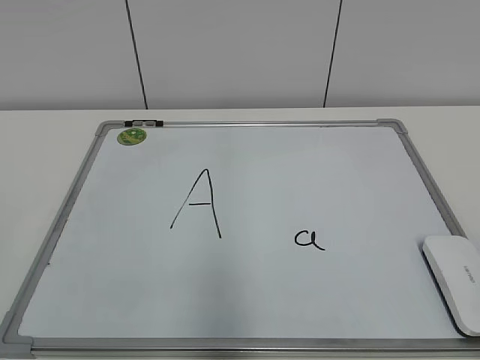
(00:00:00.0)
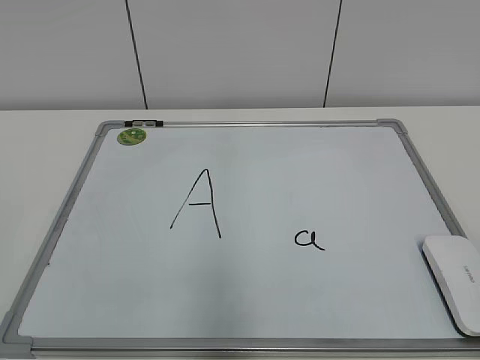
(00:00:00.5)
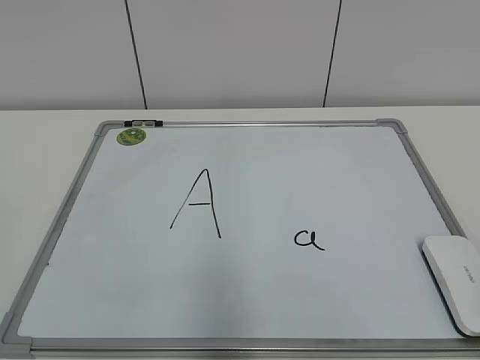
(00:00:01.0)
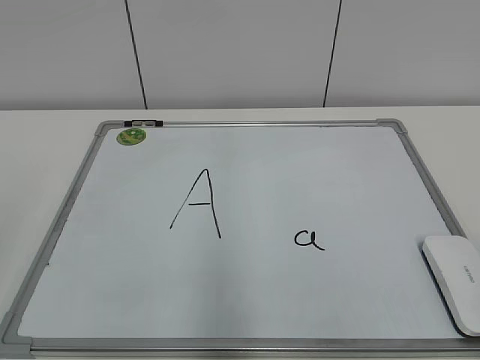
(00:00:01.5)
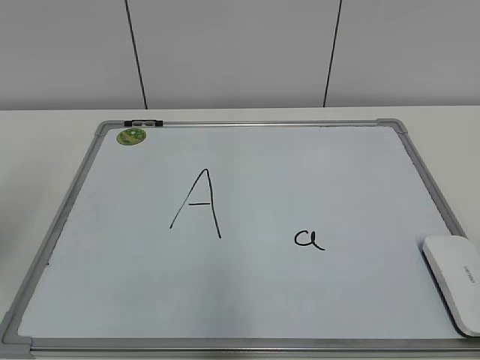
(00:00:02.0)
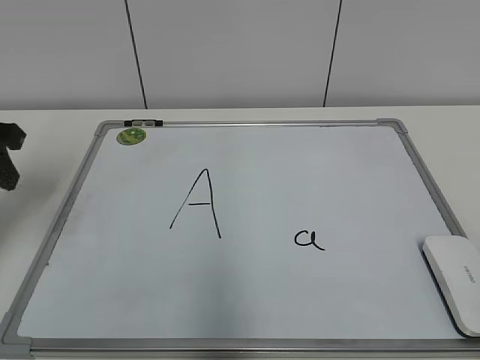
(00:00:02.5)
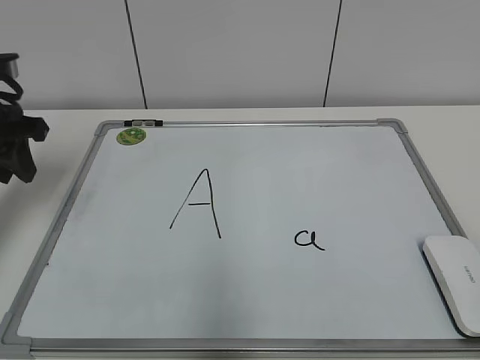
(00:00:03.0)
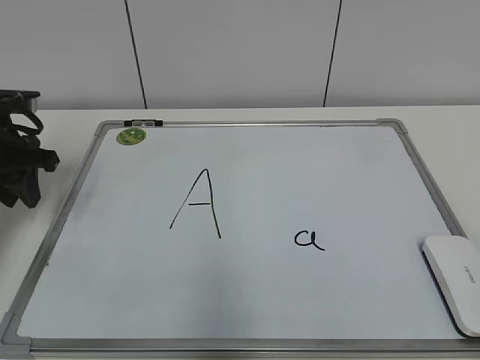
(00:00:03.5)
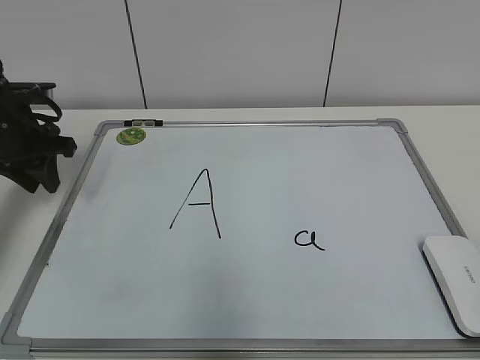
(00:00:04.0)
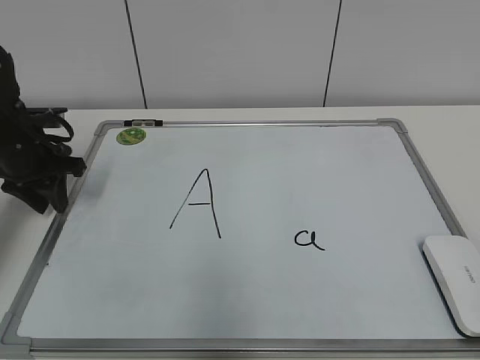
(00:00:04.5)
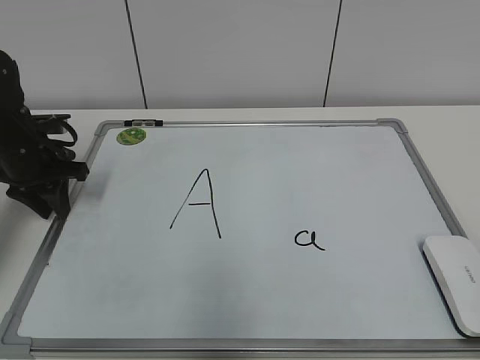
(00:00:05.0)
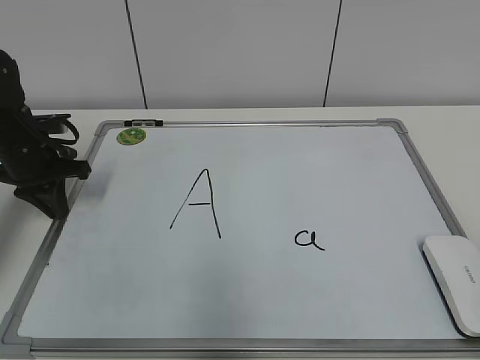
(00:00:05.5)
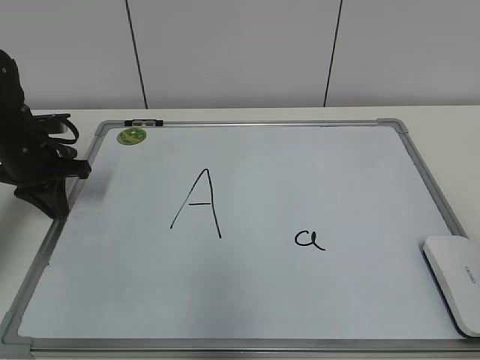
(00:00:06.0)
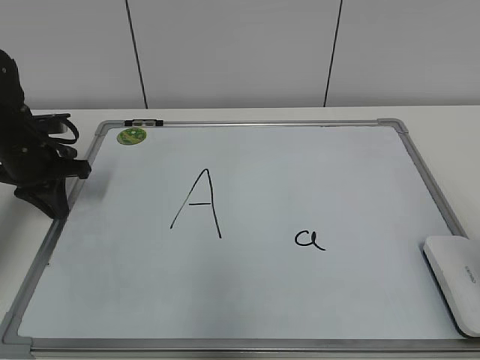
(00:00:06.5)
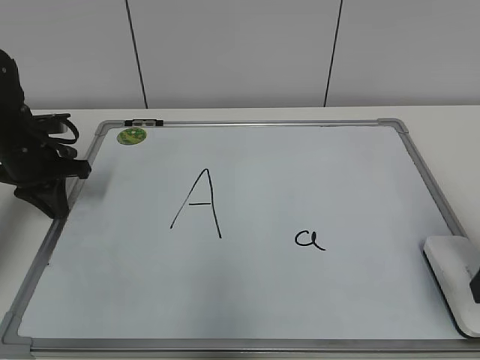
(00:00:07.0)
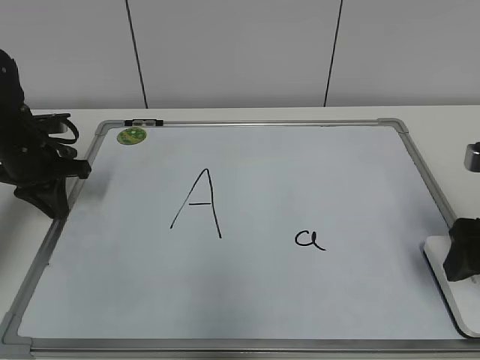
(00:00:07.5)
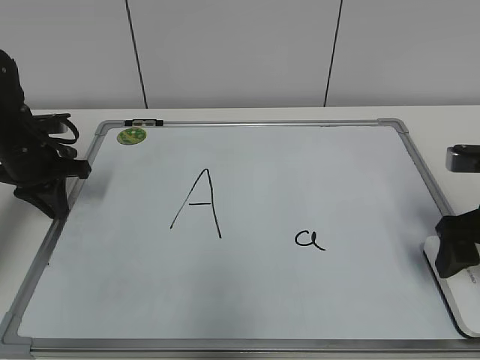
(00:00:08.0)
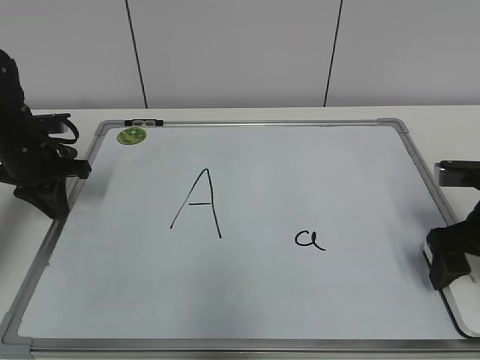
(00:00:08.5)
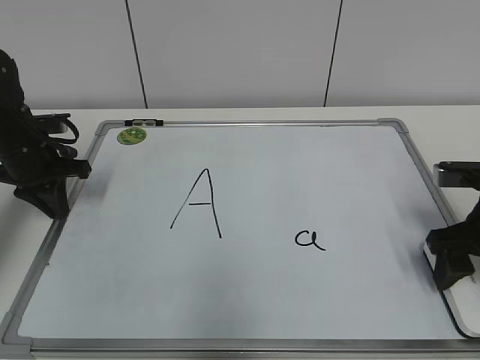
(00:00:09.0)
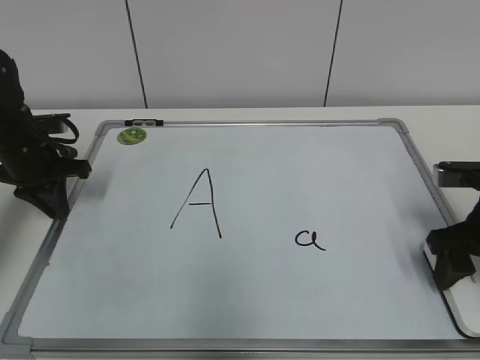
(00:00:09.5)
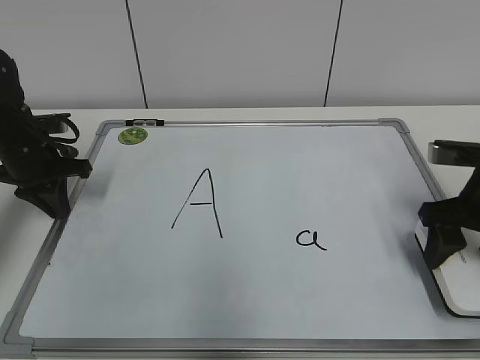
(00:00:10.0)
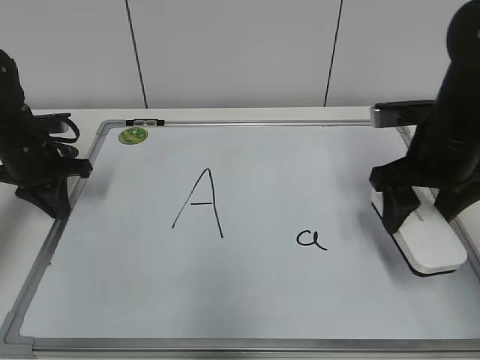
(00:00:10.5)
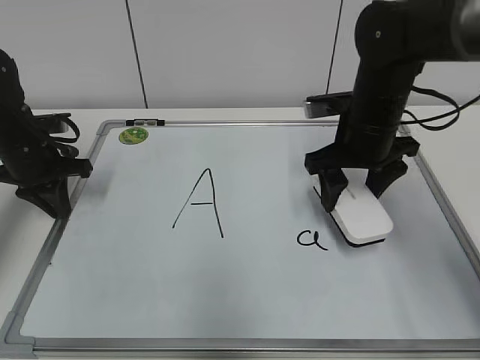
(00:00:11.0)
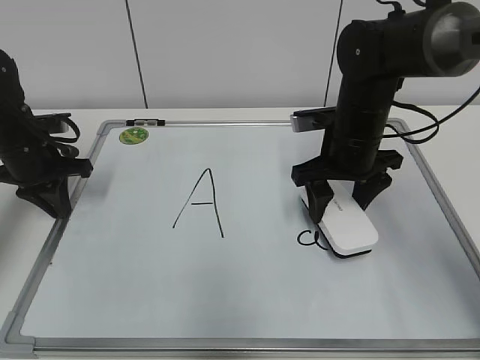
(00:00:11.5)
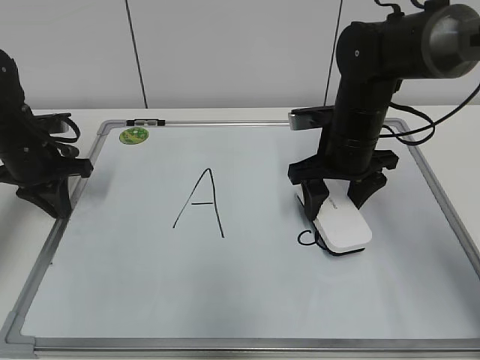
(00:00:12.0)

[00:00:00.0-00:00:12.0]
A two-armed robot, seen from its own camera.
Task of the whole recording: pick up the eraser on the blackboard and erase the letter "a".
Step, 00:00:00.0 to 00:00:05.0: Hold the drawing board steady with your left hand.
Step, 00:00:05.5 to 00:00:09.5: Grab the eraser with your right hand.
00:00:02.0 to 00:00:04.0: The left gripper is displaced forward and downward by approximately 25 cm.
00:00:04.0 to 00:00:06.0: The left gripper closes.
00:00:06.0 to 00:00:08.0: The right gripper is displaced forward and downward by about 20 cm, and opens up.
00:00:08.0 to 00:00:10.0: The right gripper closes its fingers.
00:00:10.0 to 00:00:12.0: The right gripper shifts about 15 cm to the left and forward.

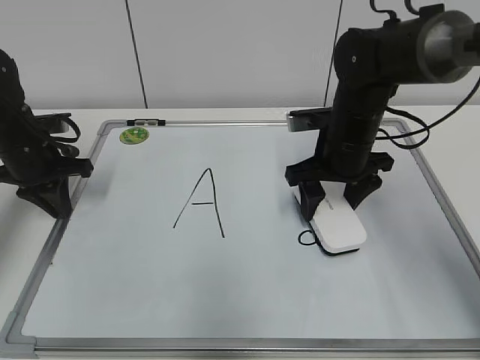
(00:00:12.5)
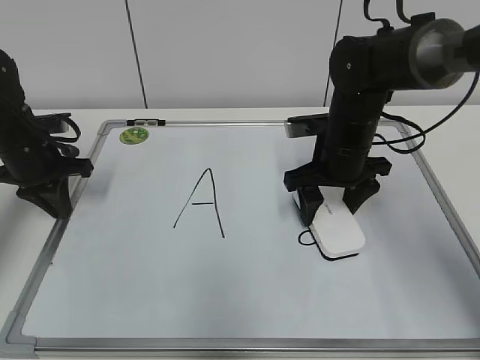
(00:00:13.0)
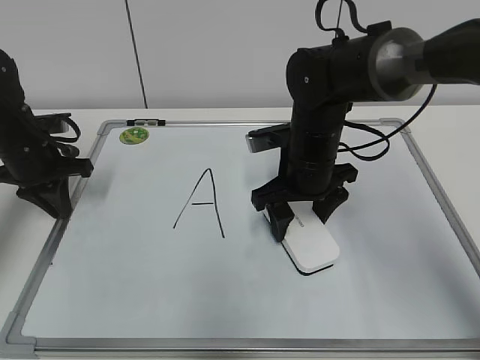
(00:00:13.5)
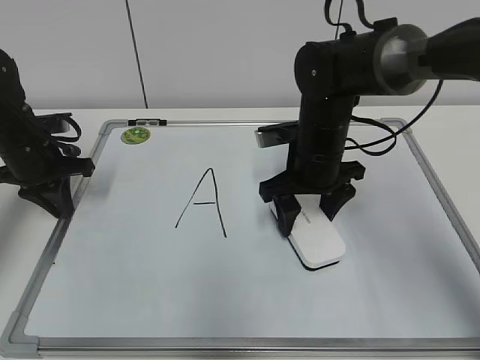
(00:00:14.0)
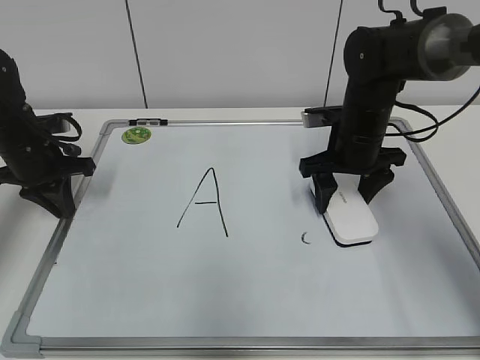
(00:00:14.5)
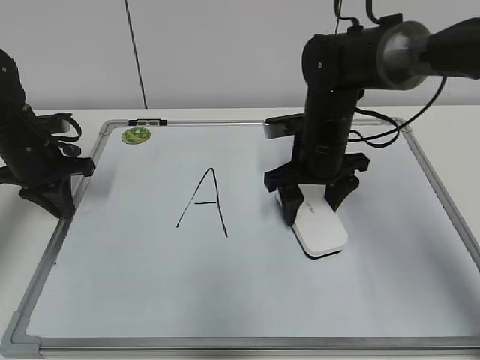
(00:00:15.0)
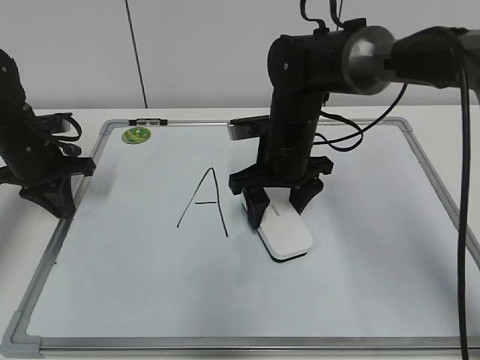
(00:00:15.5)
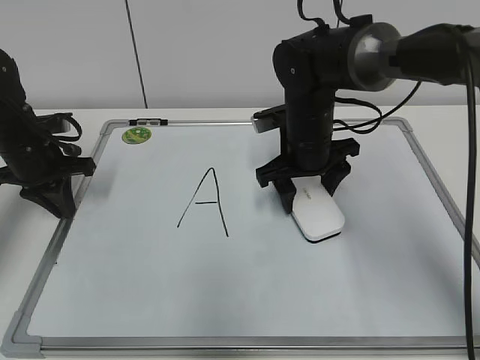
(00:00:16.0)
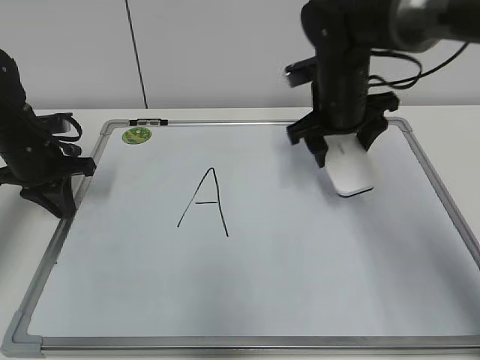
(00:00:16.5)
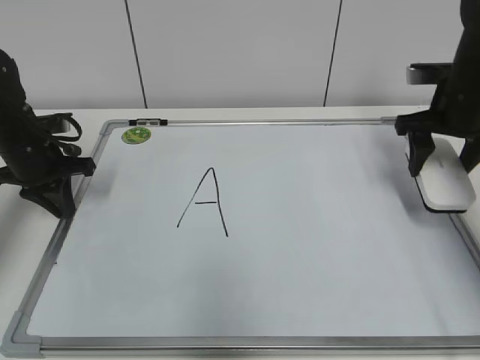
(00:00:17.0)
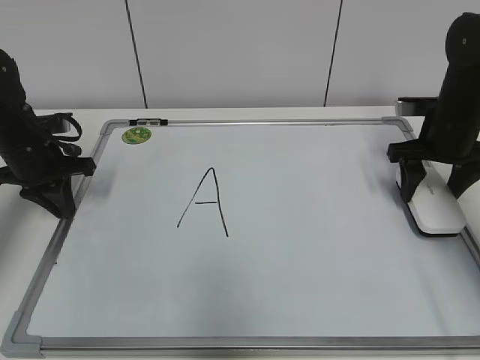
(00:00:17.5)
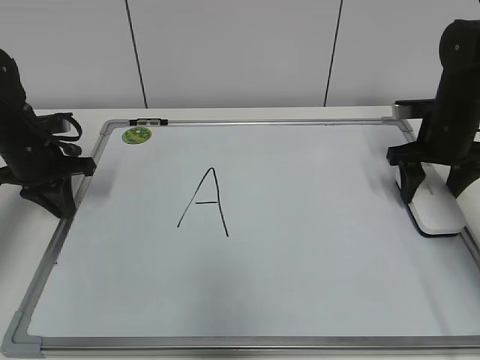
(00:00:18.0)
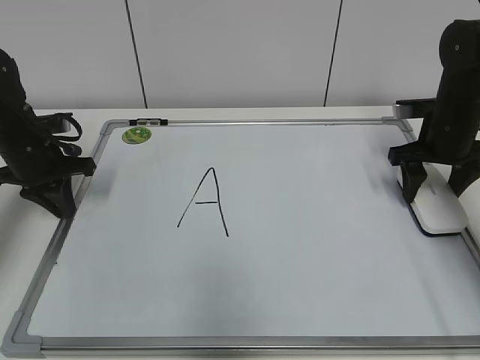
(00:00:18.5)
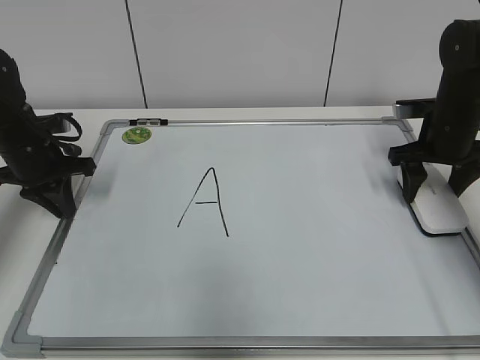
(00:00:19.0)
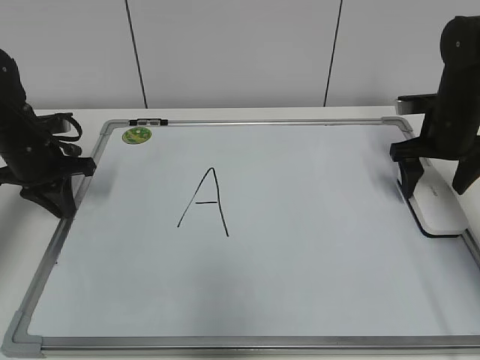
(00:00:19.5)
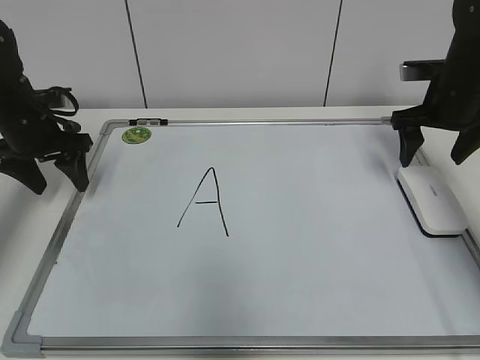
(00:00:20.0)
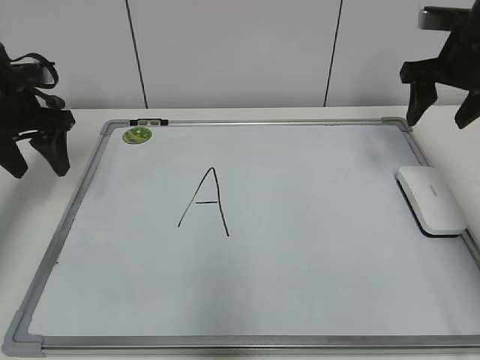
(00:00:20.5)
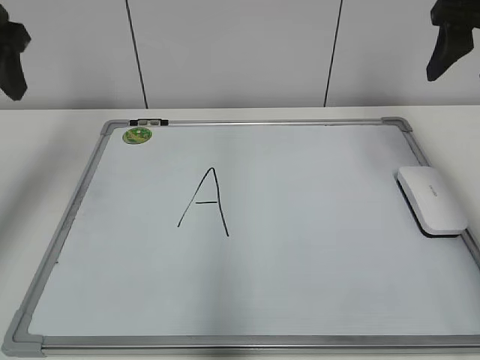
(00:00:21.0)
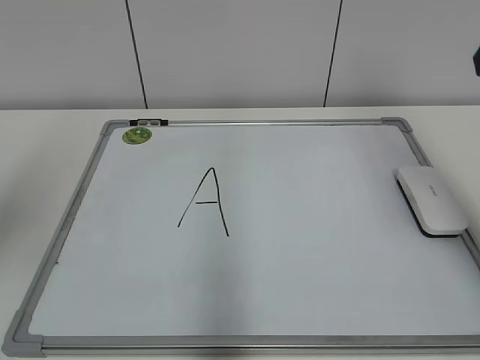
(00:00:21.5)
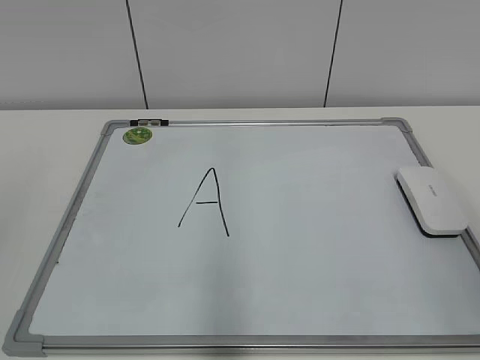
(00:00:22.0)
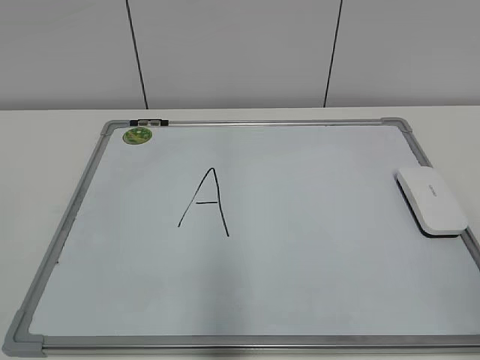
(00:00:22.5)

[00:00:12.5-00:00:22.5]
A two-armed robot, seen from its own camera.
Task of the whole recording: pick up the eraser on the blackboard and erase the letter "a".
Step, 00:00:12.5 to 00:00:16.0: Erase the letter a with your right hand.
Step, 00:00:16.5 to 00:00:19.0: Put down the eraser with your right hand.
00:00:12.5 to 00:00:14.5: The grippers make only small movements.
00:00:14.5 to 00:00:16.5: The right gripper shifts about 5 cm upward, and goes to the left and returns, about 10 cm each way.
00:00:16.5 to 00:00:18.5: The right gripper shifts roughly 15 cm to the right.
00:00:18.5 to 00:00:20.5: The grippers both shift upward by approximately 10 cm. The right gripper opens, then closes once more; the left gripper opens its fingers.
00:00:20.5 to 00:00:22.5: Both grippers travel together backward, about 40 cm.

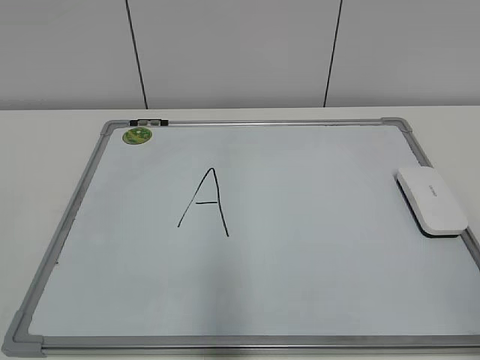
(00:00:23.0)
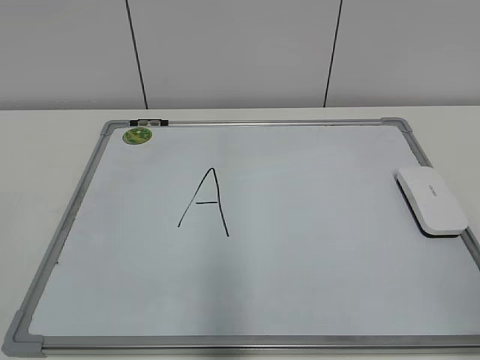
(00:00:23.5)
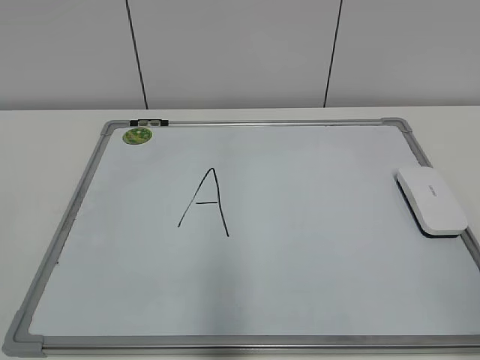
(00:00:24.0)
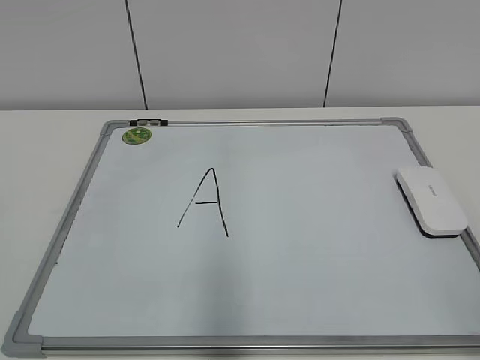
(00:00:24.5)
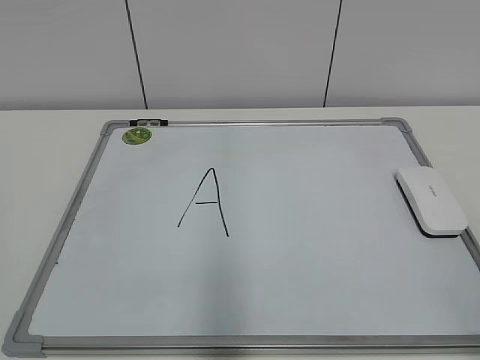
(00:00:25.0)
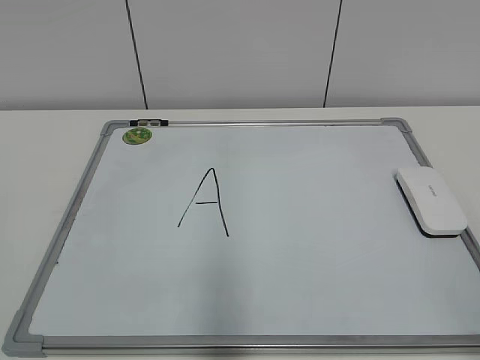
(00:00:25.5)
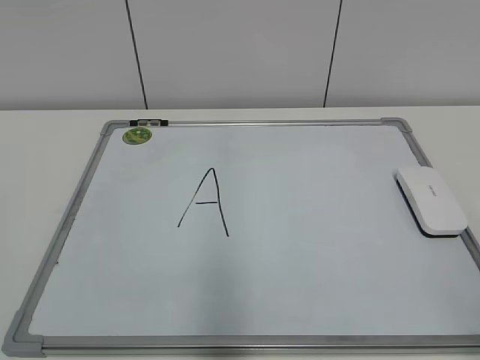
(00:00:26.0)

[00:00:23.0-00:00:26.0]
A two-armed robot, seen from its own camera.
Task of the whole recording: pick up the eraser on the blackboard and erase the letter "a".
00:00:24.5 to 00:00:26.0: The two grippers keep their place.
